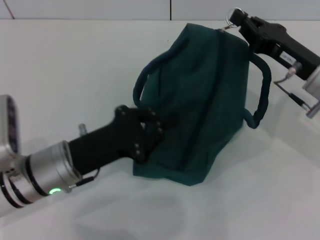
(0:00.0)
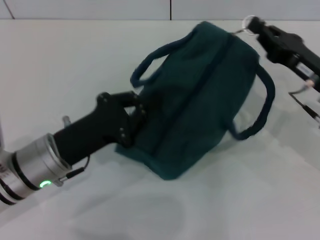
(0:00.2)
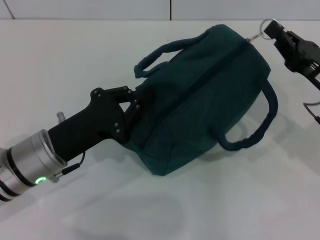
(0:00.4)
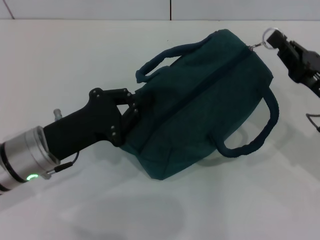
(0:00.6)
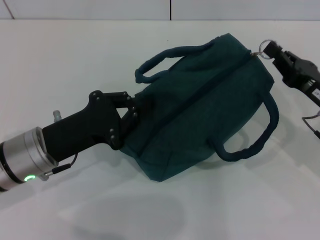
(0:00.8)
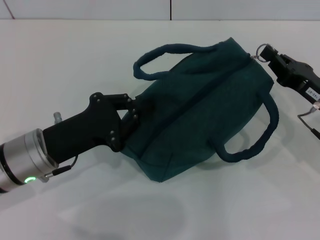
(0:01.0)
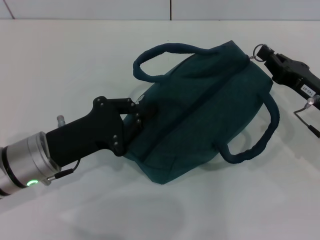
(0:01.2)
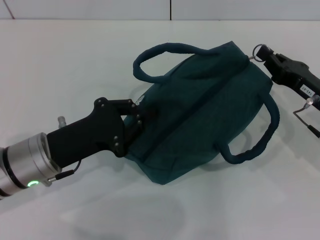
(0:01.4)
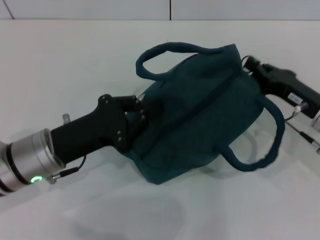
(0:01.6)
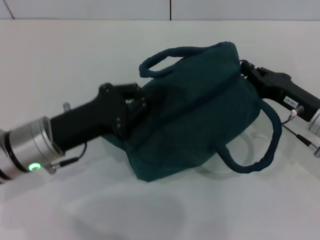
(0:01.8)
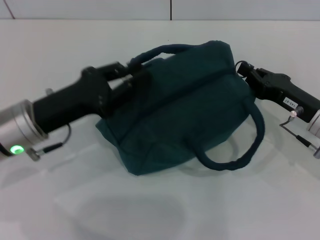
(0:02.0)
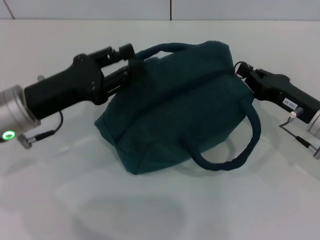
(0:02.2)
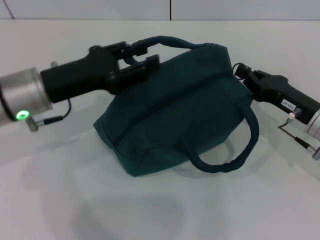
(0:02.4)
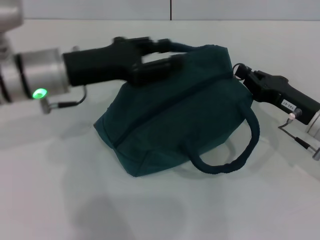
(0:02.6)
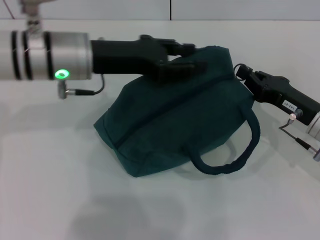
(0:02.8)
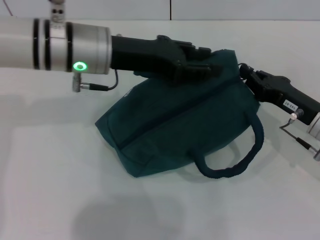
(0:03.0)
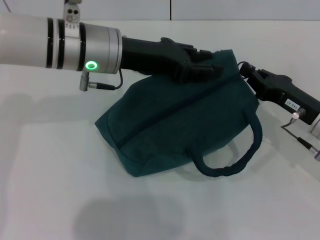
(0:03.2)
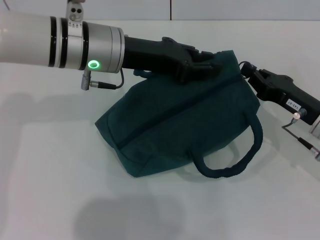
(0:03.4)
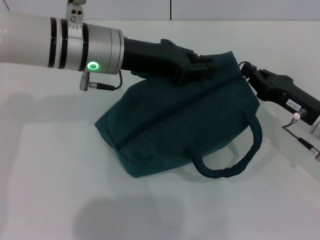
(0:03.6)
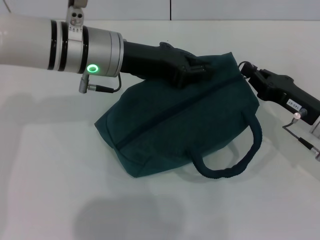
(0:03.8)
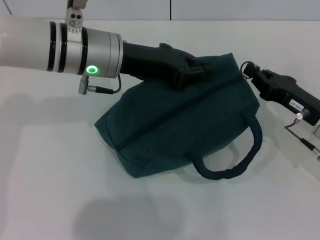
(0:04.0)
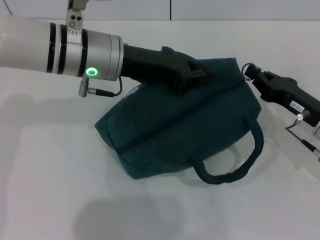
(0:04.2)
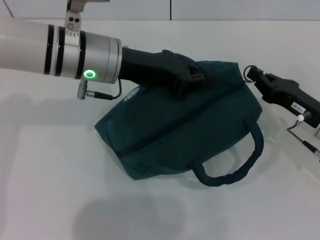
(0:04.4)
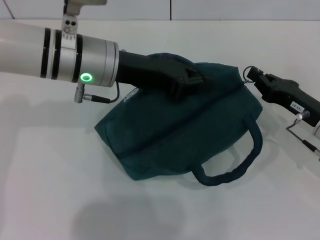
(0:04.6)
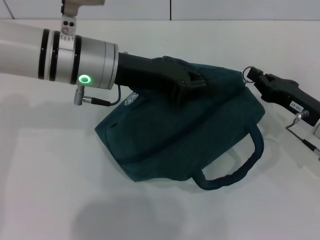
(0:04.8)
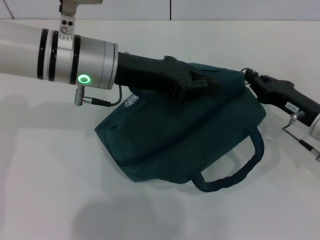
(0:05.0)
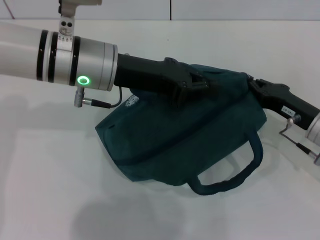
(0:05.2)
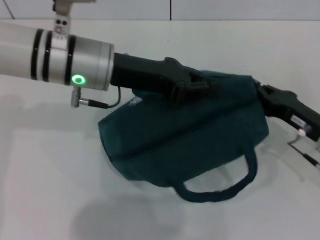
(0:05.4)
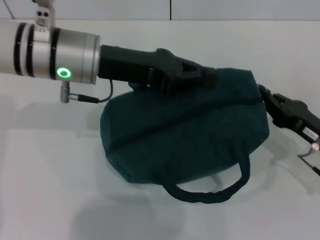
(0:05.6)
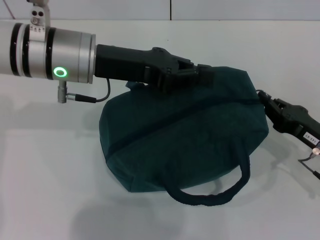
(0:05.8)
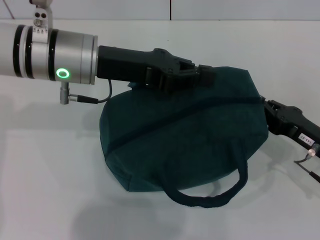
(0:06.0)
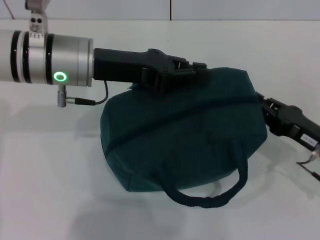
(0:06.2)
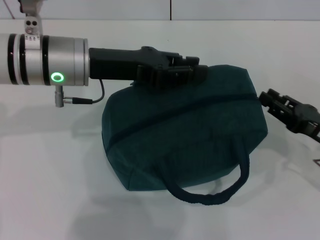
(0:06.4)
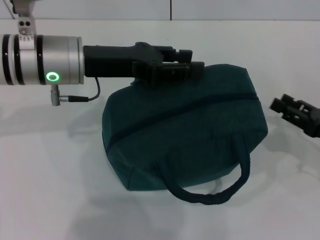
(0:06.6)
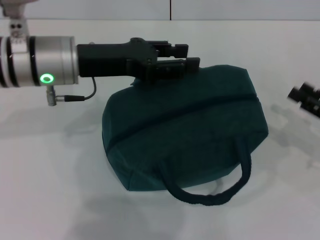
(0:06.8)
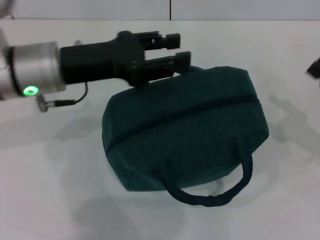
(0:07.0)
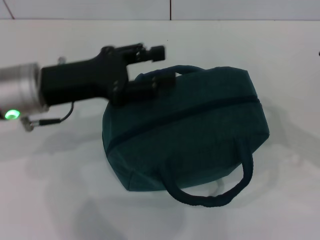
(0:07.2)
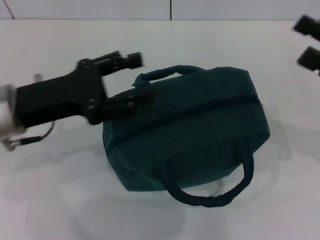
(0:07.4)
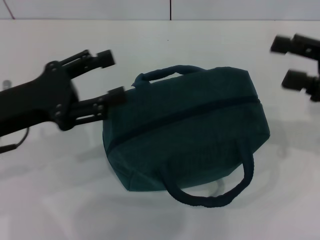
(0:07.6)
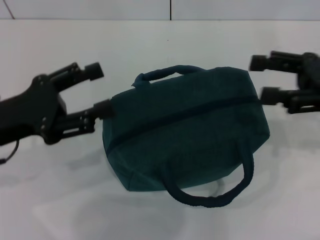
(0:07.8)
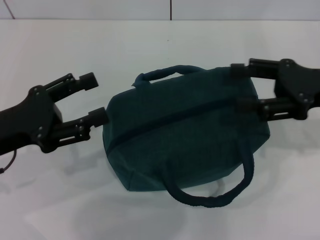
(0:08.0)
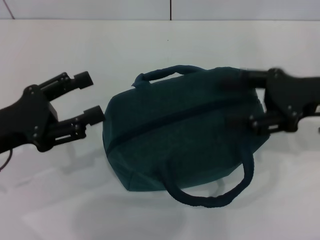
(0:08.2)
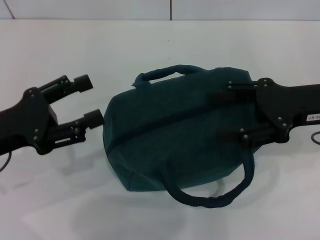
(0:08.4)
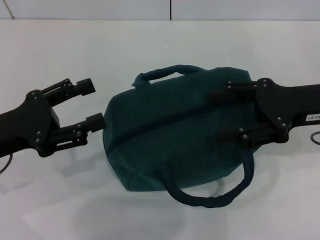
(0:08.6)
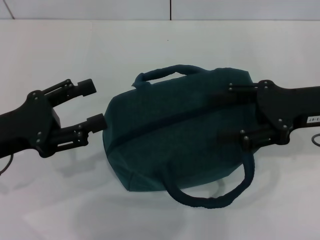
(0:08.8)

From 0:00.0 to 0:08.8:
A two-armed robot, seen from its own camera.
Step, from 0:00.0 to 0:06.4: Zip up the lunch bag with your right hand.
Step, from 0:06.6 to 0:06.8: Hold the lunch bag with your left hand.
From 0:00.0 to 0:01.4: The right gripper ends up some 5 cm from where it was.
From 0:01.4 to 0:03.0: The left gripper shifts some 20 cm forward, upward and to the right, and opens up.
From 0:03.0 to 0:04.4: The left gripper closes its fingers.
From 0:05.8 to 0:07.4: The left gripper heads to the left and backward, covering roughly 10 cm, and opens its fingers. The right gripper goes about 10 cm upward, and opens its fingers.
From 0:07.4 to 0:08.8: The two grippers go roughly 5 cm to the left.

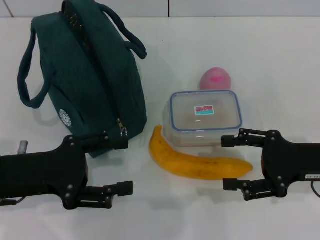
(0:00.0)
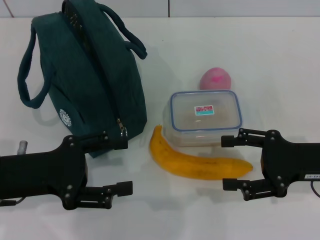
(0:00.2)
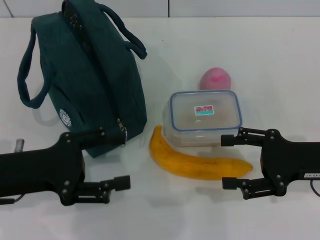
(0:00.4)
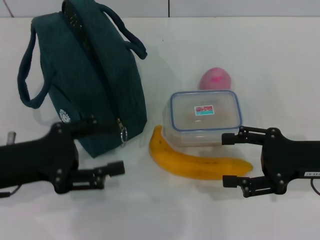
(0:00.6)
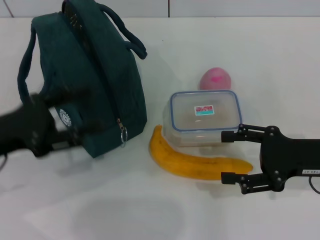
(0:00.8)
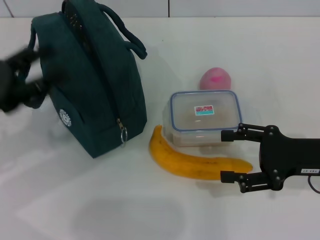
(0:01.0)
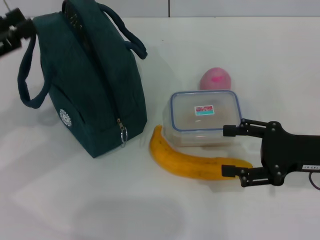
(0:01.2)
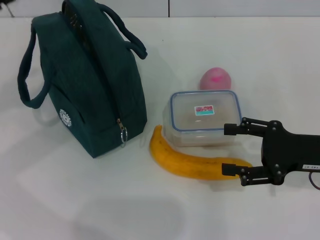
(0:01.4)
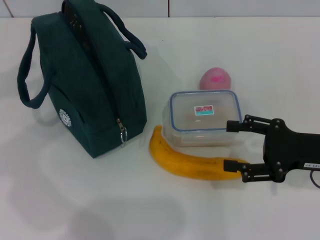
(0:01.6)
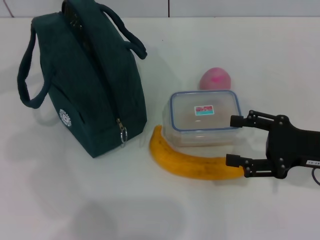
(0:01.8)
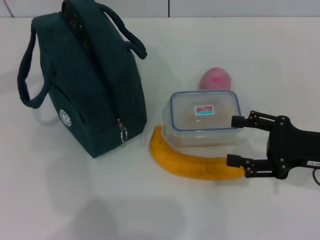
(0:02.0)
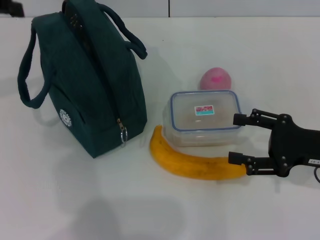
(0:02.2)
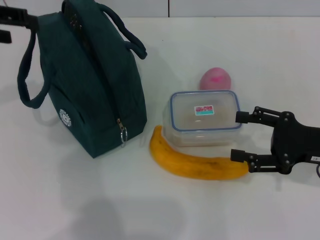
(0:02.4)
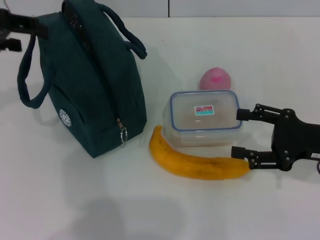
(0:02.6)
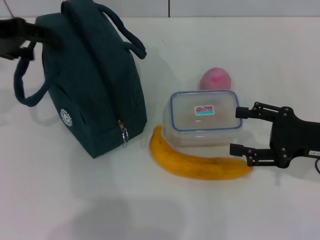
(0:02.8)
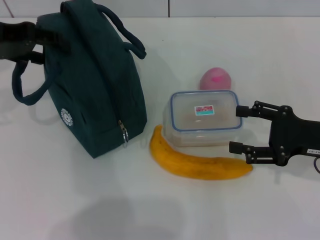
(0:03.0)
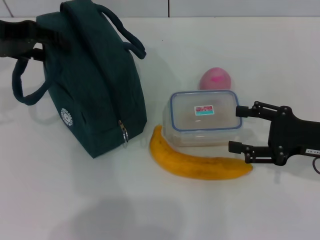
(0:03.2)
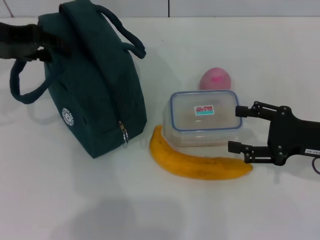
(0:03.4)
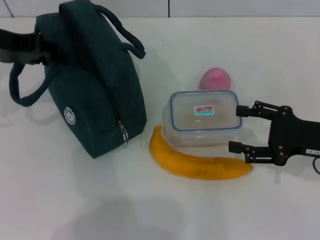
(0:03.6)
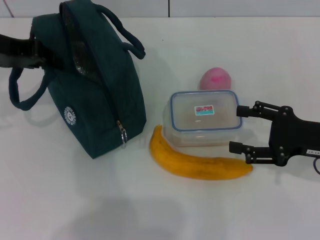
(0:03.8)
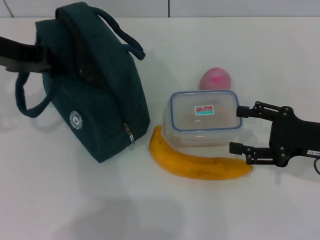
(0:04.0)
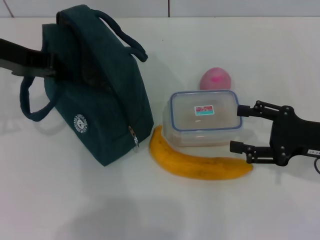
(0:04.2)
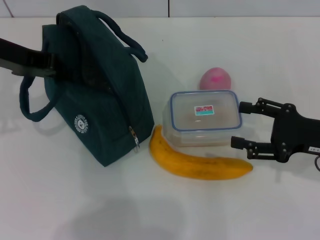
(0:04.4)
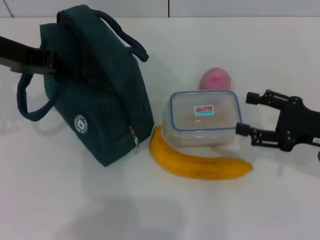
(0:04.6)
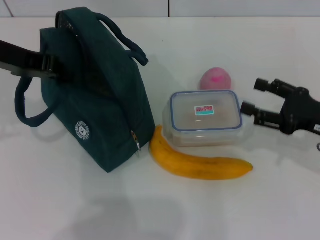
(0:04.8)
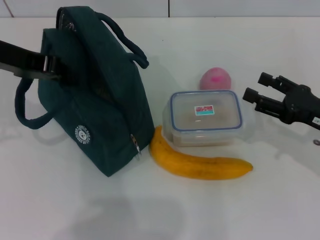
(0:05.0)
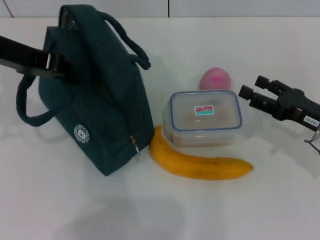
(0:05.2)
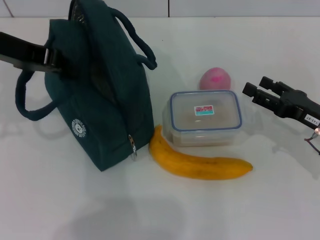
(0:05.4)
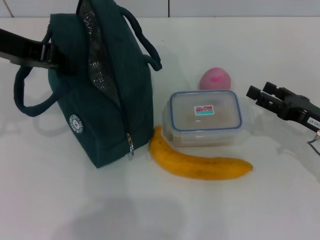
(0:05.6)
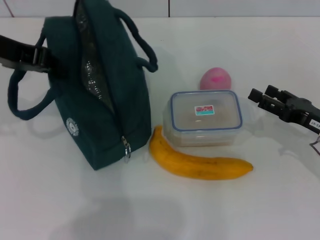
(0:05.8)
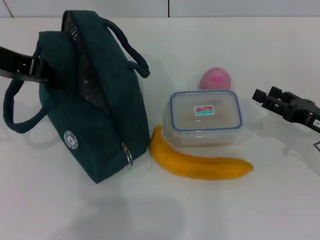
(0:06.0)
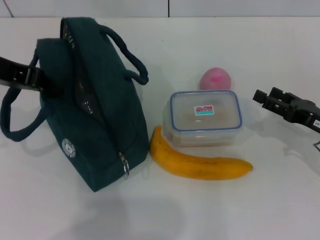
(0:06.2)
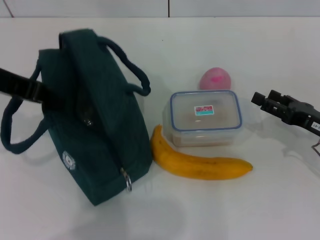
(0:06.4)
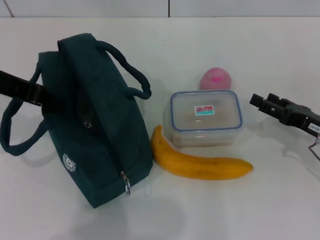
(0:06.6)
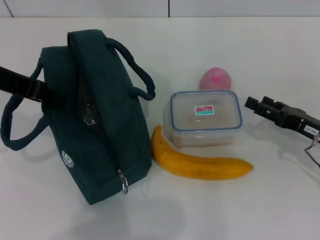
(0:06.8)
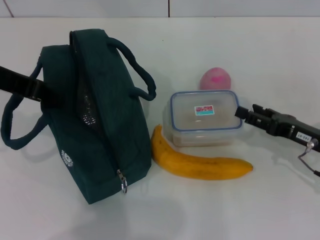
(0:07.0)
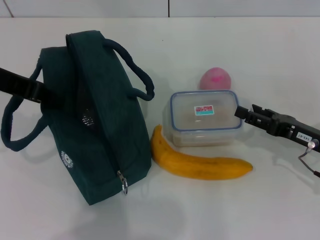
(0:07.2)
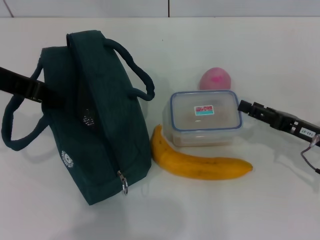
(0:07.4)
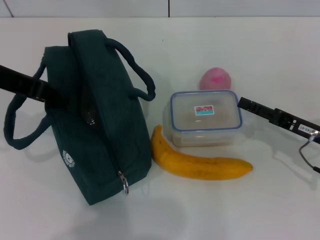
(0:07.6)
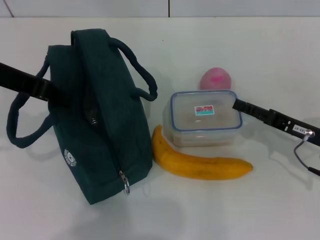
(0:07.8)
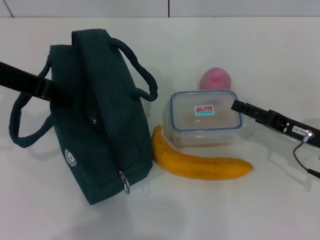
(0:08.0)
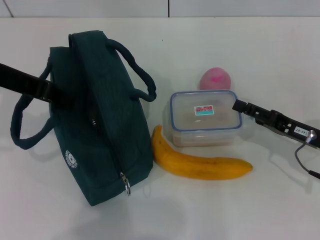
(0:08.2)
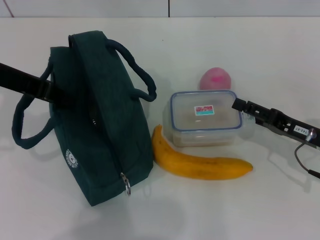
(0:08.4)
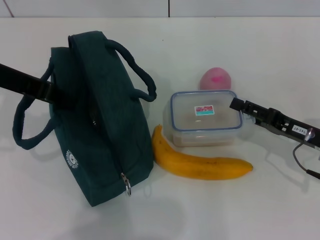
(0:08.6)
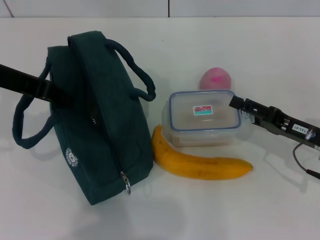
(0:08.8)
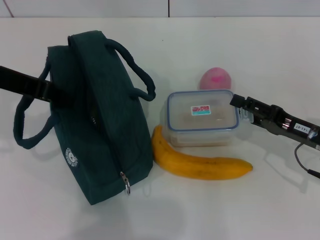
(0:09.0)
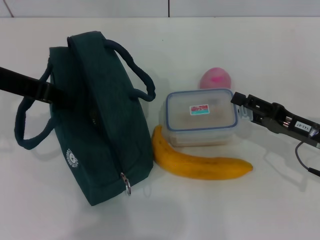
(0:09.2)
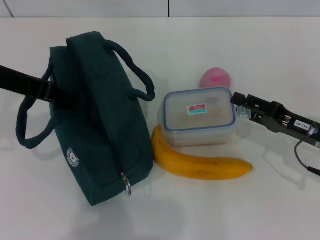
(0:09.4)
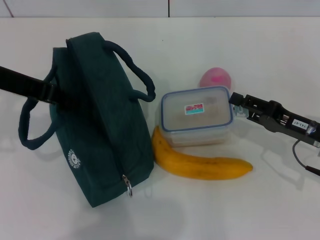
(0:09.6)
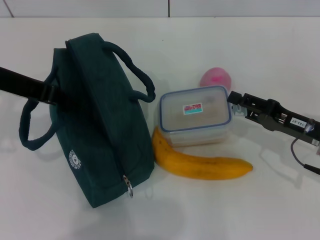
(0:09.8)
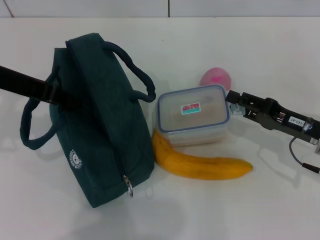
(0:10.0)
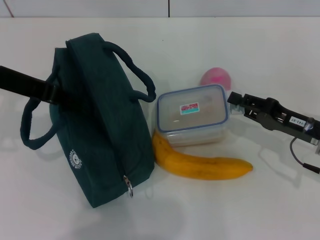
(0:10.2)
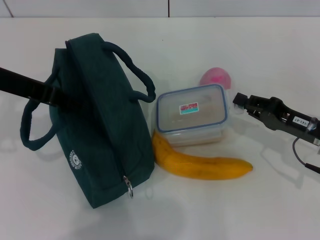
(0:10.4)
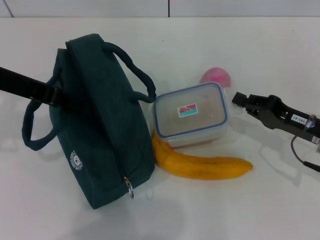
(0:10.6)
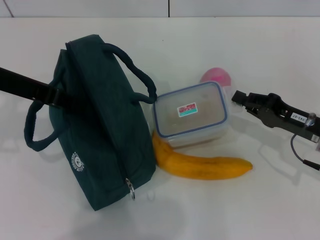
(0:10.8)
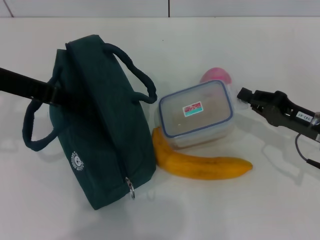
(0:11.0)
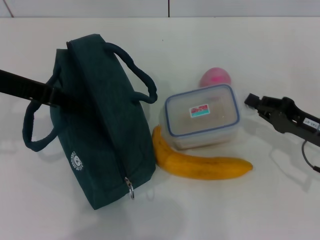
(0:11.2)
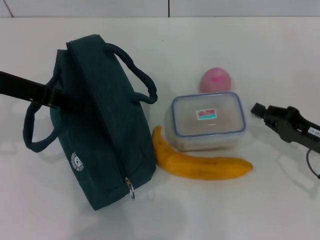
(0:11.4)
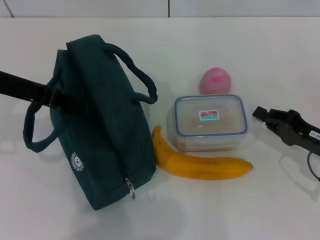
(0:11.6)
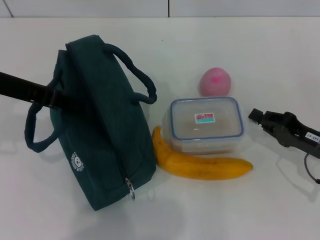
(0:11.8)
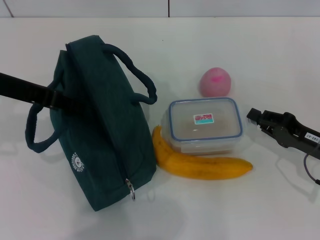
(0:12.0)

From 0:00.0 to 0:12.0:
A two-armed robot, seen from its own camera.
Step, from 0:00.0 to 0:04.4: Hold the lunch bag with your left hand.
From 0:00.0 to 0:01.6: The left gripper shifts some 20 cm upward, to the left and forward.
From 0:01.6 to 0:03.0: The left gripper travels to the right by some 5 cm.
From 0:03.0 to 0:04.4: The left gripper closes up.
From 0:06.0 to 0:07.6: There are only small adjustments of the grippers.
From 0:07.6 to 0:09.0: There are only small adjustments of the grippers.
From 0:09.0 to 0:10.4: The right gripper closes.
From 0:10.4 to 0:12.0: The grippers stay close to where they were, moving slightly.

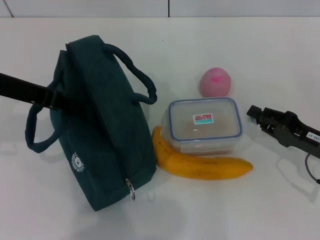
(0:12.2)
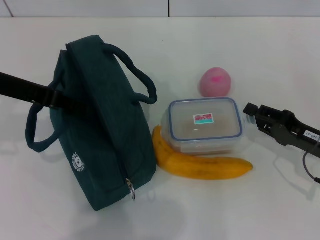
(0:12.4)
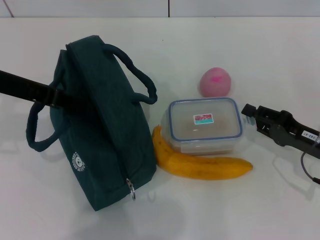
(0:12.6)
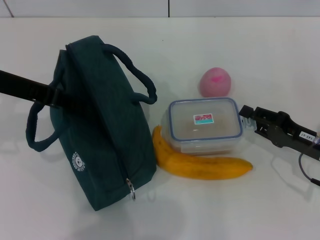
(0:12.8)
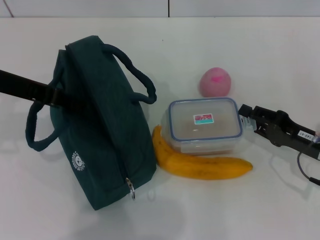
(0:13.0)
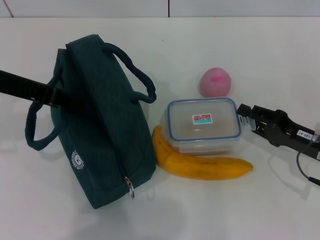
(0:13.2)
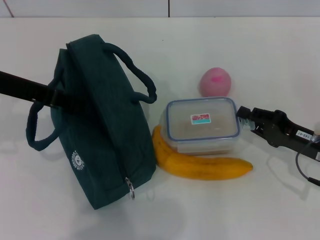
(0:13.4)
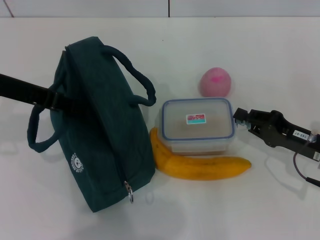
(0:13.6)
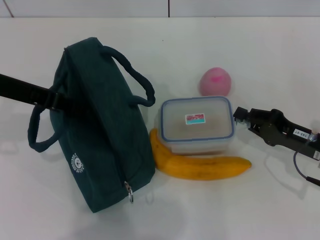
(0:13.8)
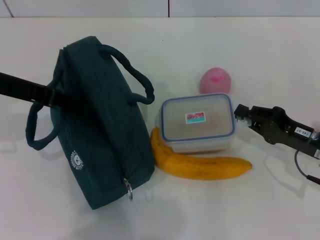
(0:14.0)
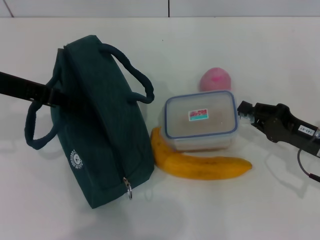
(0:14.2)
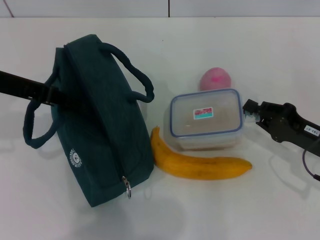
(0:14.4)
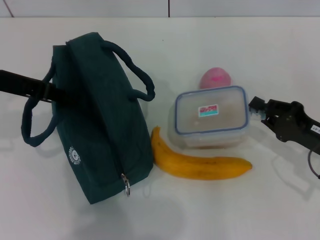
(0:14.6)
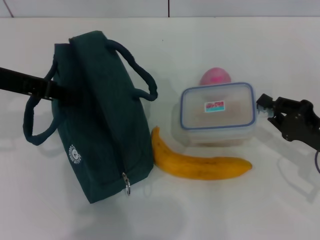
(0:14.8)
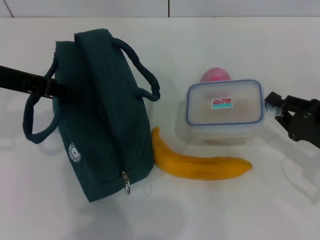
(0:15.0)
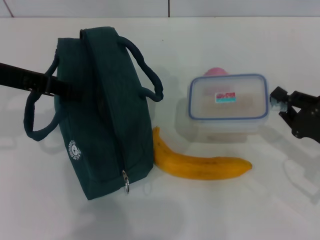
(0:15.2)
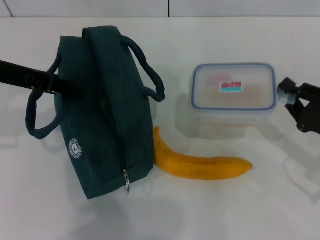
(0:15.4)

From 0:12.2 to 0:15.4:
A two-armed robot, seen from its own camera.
Step, from 0:12.2 to 0:14.4: Pick up the lunch box with your right hand.
From 0:12.2 to 0:13.8: The grippers move only a little.
